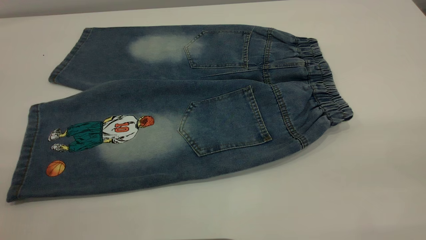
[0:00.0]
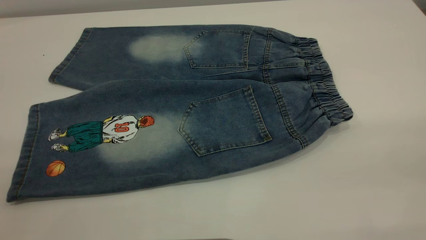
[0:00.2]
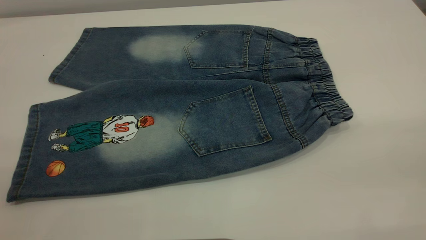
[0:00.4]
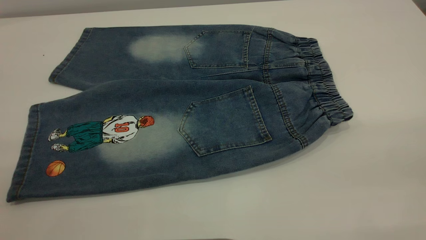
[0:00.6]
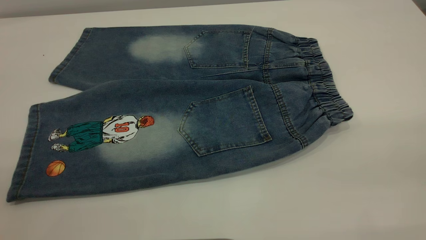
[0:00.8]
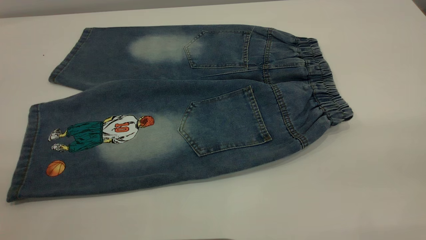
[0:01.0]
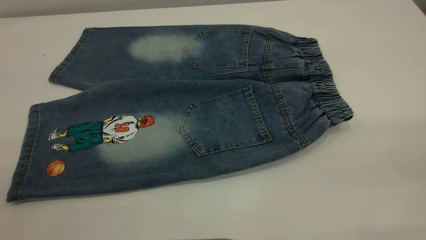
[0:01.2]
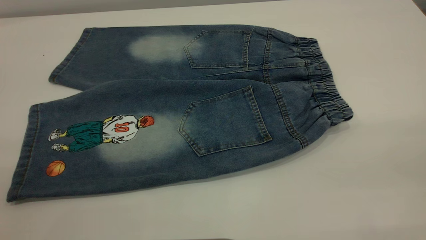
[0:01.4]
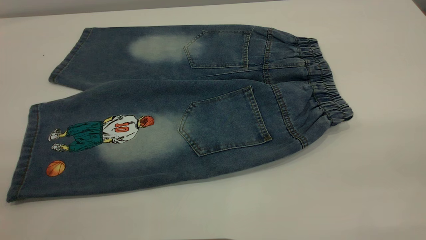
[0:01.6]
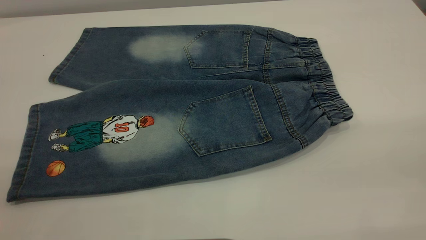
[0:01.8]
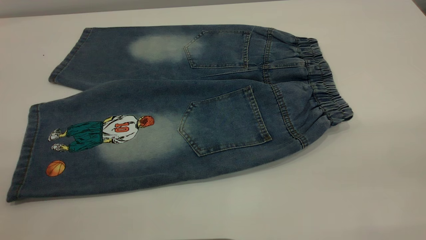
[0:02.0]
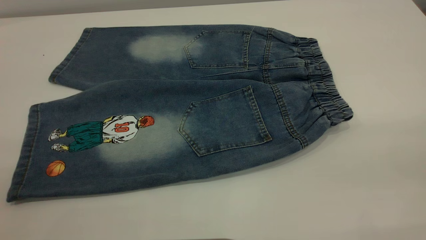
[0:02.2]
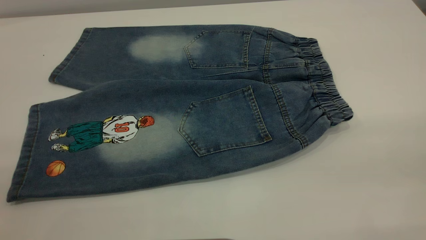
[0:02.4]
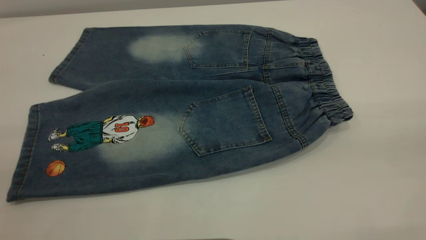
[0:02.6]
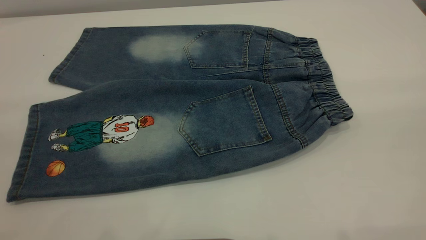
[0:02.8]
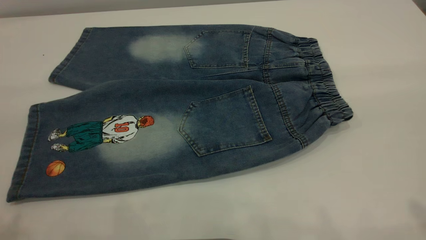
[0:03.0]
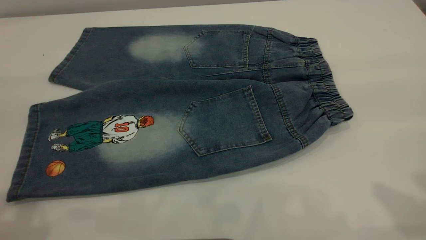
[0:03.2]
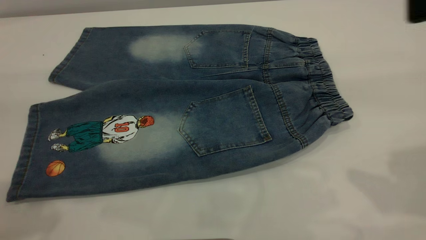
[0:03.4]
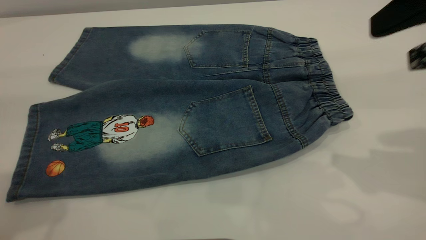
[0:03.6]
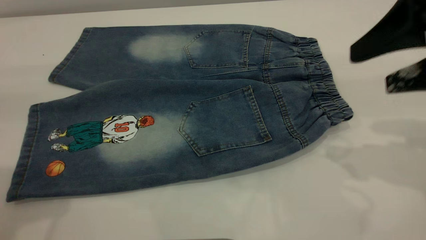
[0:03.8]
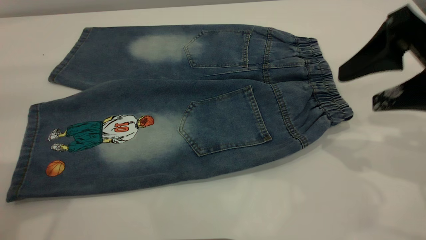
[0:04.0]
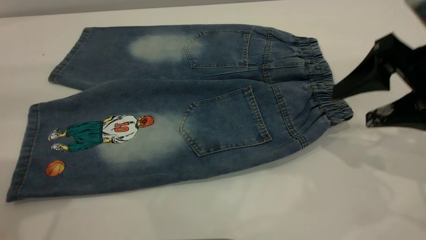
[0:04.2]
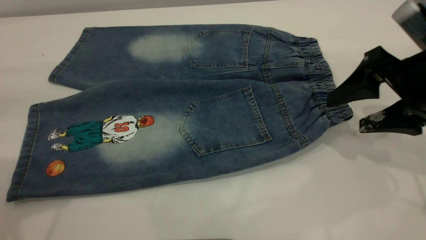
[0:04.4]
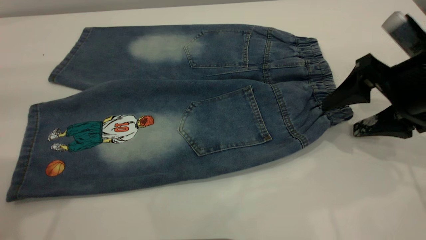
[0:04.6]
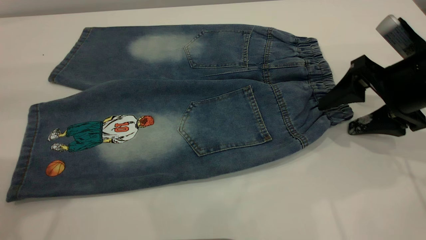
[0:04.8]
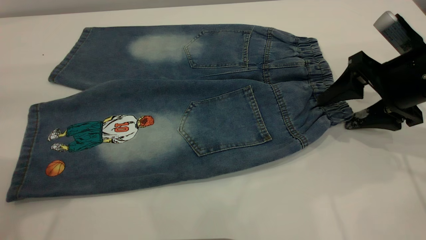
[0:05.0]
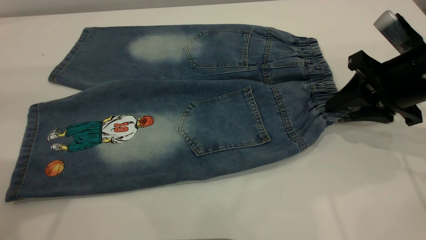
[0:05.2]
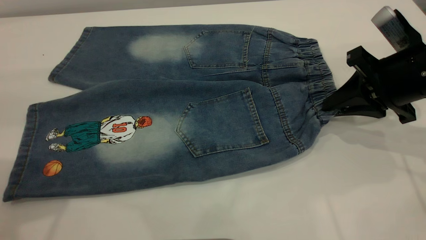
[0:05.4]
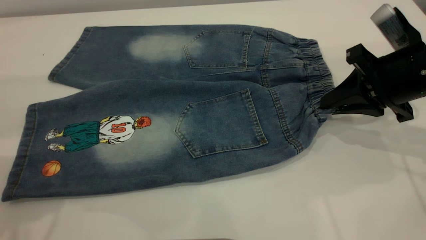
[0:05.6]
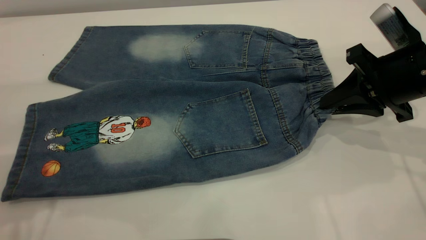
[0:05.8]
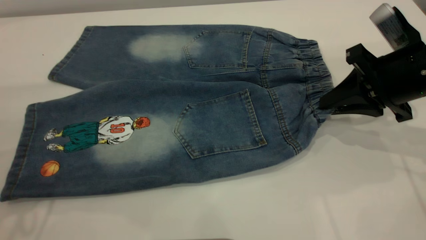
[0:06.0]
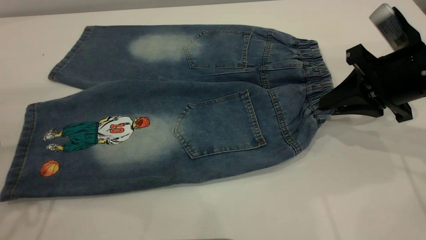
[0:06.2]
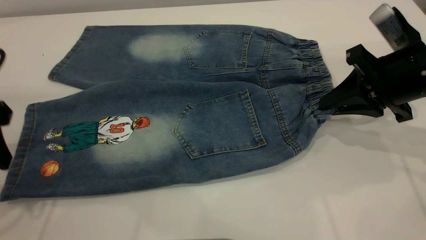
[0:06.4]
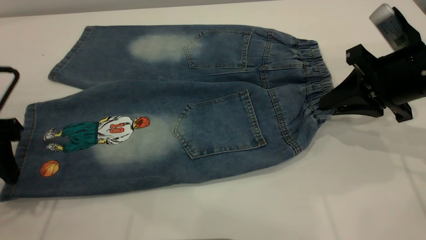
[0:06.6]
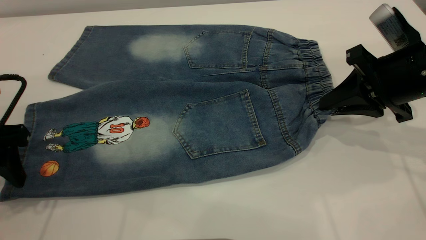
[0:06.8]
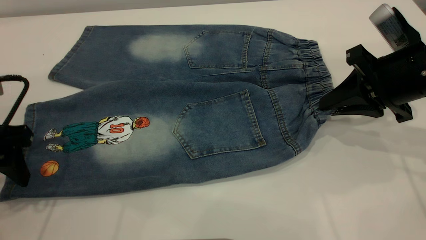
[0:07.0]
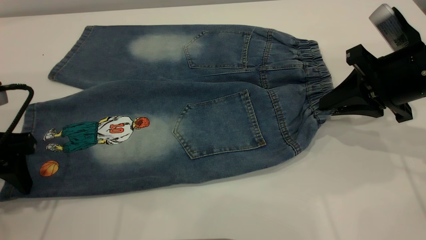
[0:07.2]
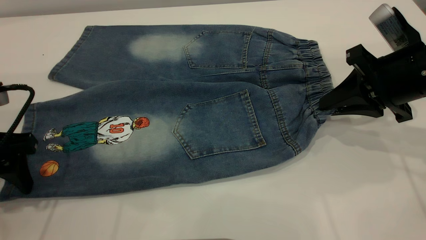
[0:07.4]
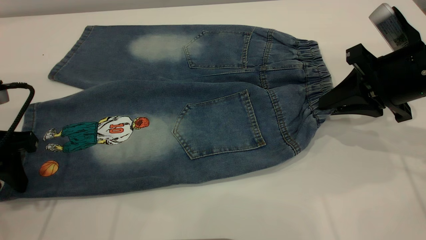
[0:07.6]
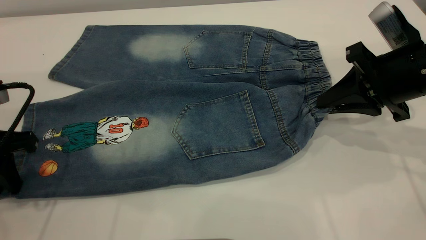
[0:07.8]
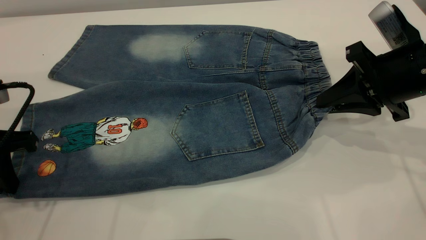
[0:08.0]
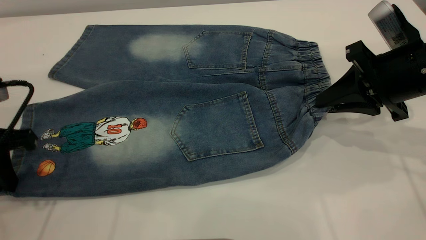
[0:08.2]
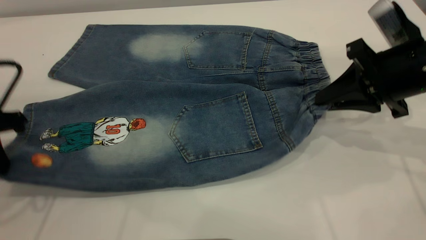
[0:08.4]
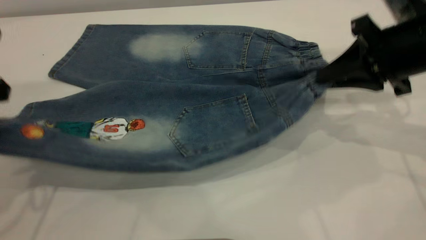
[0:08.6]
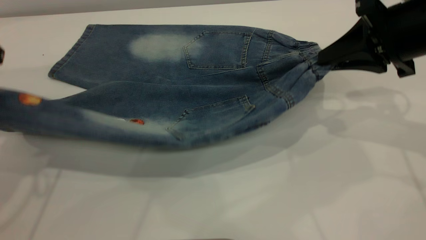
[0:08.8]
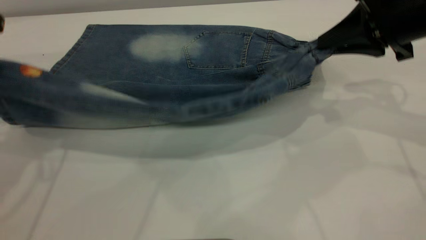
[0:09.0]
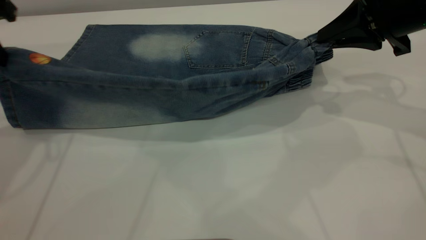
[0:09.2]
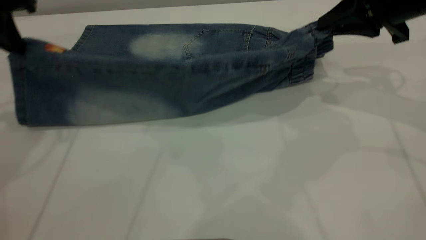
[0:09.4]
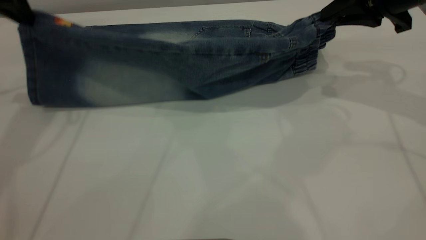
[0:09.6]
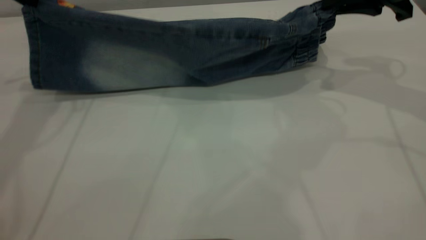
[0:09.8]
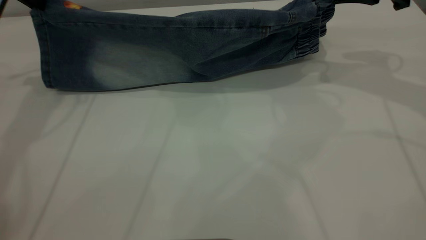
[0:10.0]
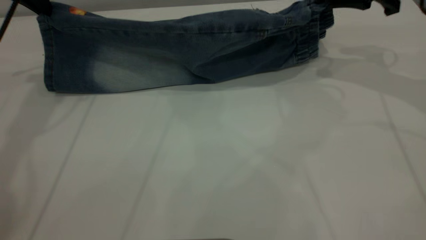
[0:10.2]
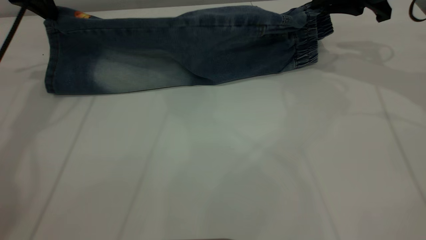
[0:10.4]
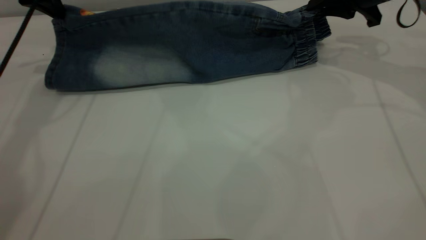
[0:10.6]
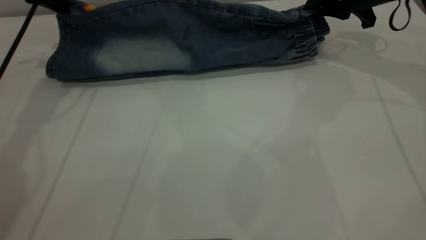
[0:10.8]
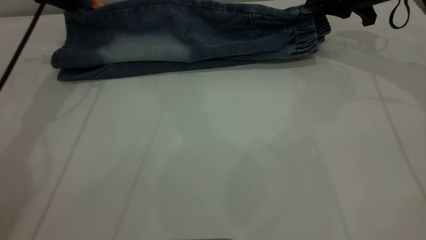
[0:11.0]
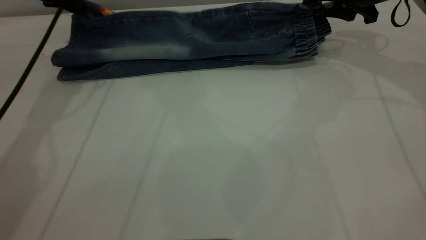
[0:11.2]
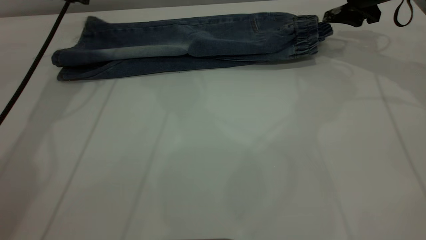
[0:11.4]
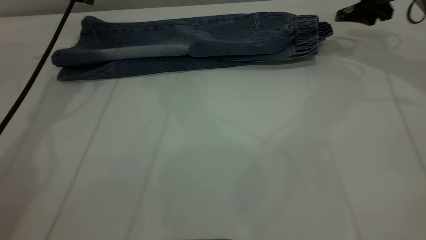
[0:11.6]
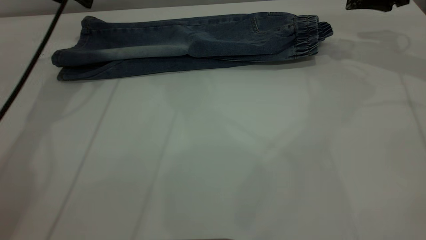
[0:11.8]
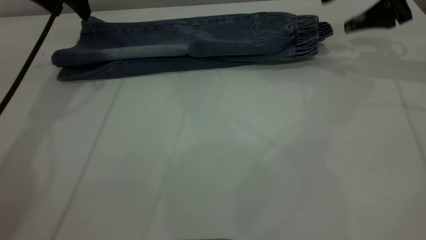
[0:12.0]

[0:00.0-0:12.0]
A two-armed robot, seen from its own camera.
Step, 0:00.0 to 0:11.6: Fold the bottom of the pants upward.
0:00.0 to 0:01.6: Neither gripper changes place.
0:03.0 to 0:04.4: The right gripper heads downward and forward, covering roughly 25 cm.
0:04.4 to 0:06.0: The left gripper shifts approximately 10 cm downward. Meanwhile the right gripper closes up.
0:06.0 to 0:07.6: The left gripper is displaced downward by some 10 cm.
0:07.6 to 0:09.0: The left gripper moves upward and forward, about 15 cm, and closes its fingers, while the right gripper heads upward, covering approximately 5 cm.
0:09.0 to 0:10.4: The left gripper travels forward by approximately 15 cm. The right gripper moves forward, approximately 10 cm.
0:10.4 to 0:12.0: The left gripper opens up. Meanwhile the right gripper opens its fingers.

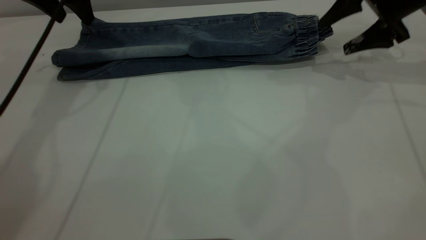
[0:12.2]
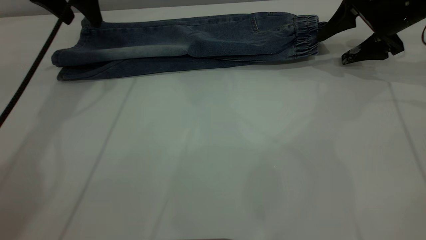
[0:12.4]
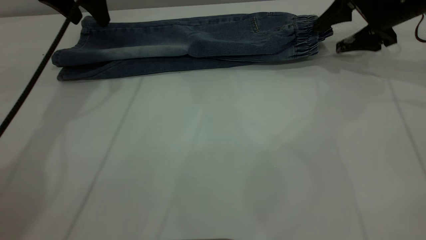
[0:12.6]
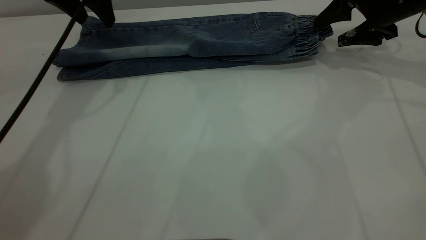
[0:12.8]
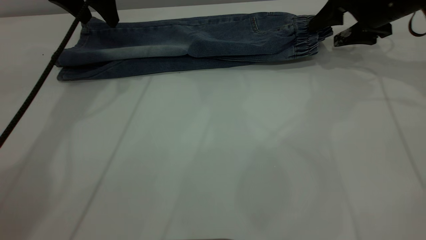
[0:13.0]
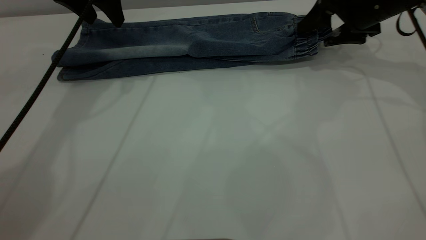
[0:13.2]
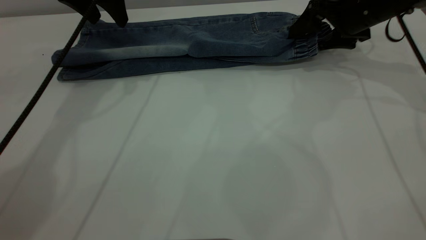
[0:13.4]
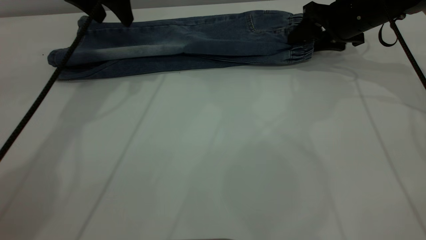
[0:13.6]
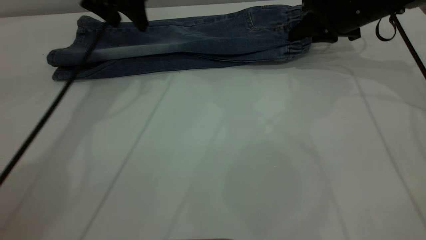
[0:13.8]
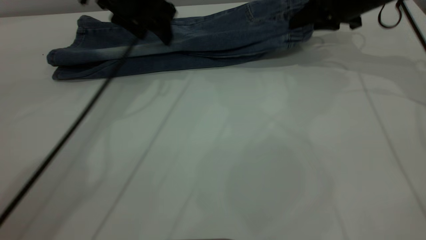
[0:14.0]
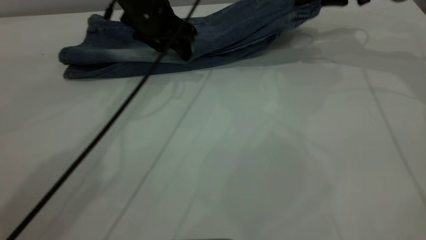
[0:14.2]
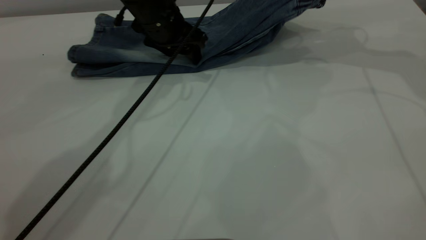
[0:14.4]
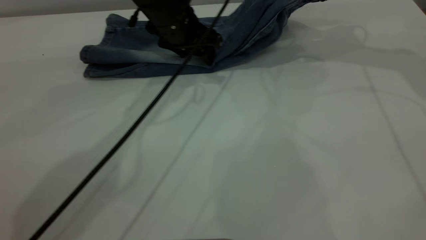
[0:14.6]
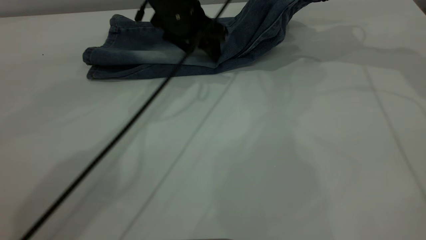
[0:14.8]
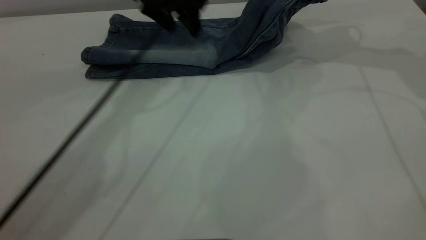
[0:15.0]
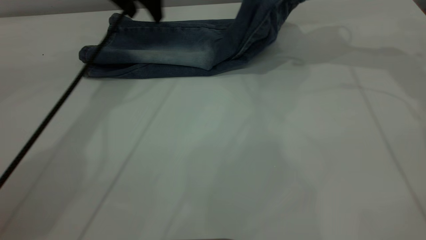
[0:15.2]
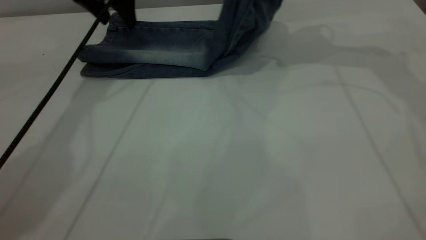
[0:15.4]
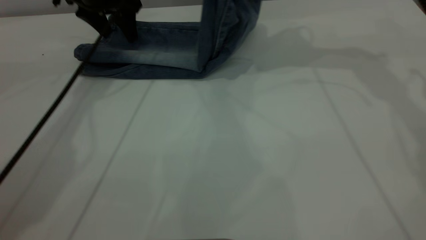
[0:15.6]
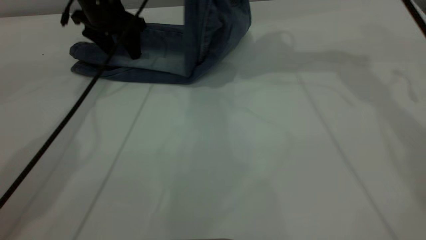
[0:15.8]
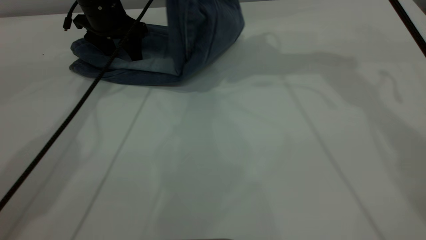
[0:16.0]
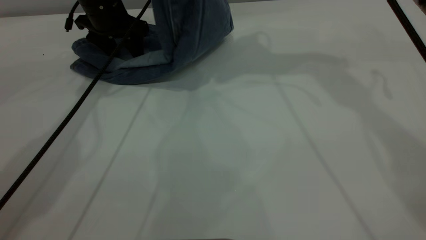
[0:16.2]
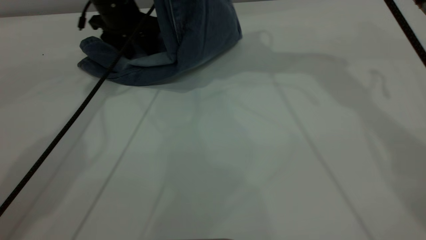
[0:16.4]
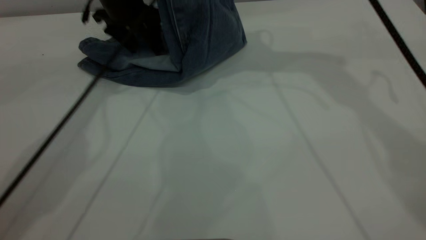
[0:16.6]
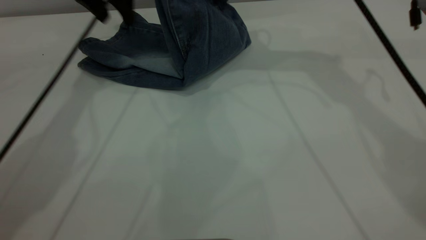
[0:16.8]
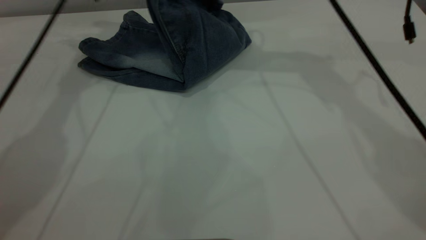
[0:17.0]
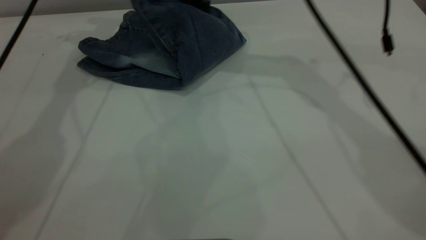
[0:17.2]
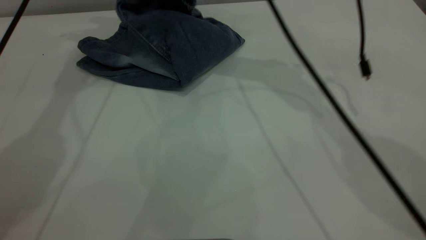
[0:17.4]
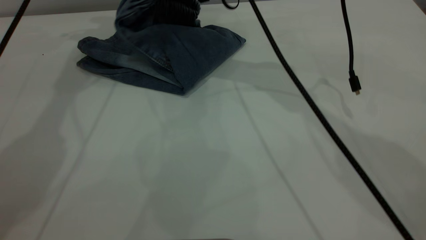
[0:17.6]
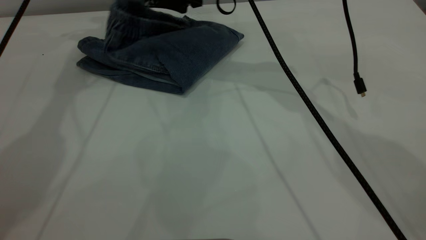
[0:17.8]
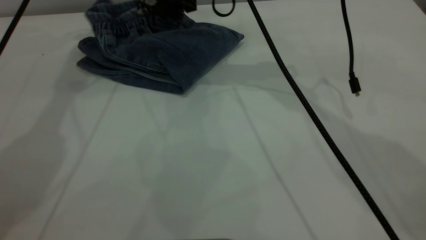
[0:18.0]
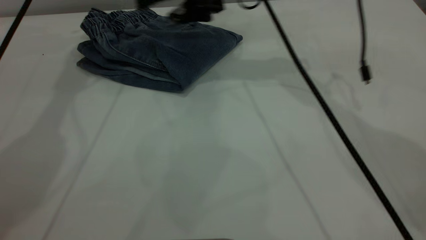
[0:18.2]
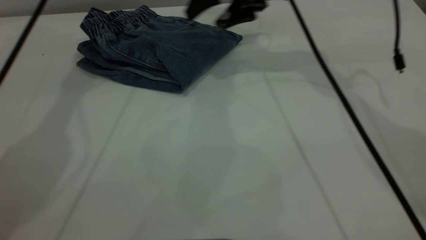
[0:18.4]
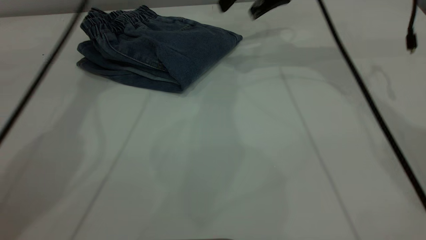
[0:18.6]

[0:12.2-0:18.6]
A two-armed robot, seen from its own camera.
Step, 0:12.2 to 0:18.4: Fold your pants from right to left.
0:12.2 to 0:13.8: The left gripper heads to the right, covering approximately 10 cm. The right gripper goes some 5 cm to the left, and closes its fingers.
0:13.8 to 0:15.4: The left gripper reaches some 10 cm to the right, then returns. The right gripper goes some 15 cm upward.
0:15.4 to 0:17.0: The left gripper is displaced upward and to the left by roughly 10 cm, while the right gripper goes some 10 cm to the left.
0:17.0 to 0:18.6: Both grippers move to the right, approximately 10 cm. The right gripper opens its fingers.
